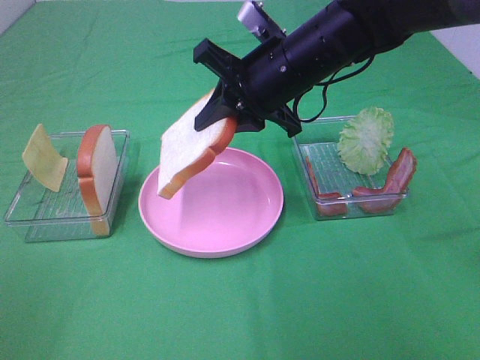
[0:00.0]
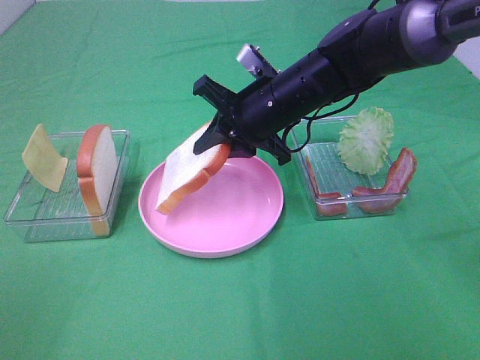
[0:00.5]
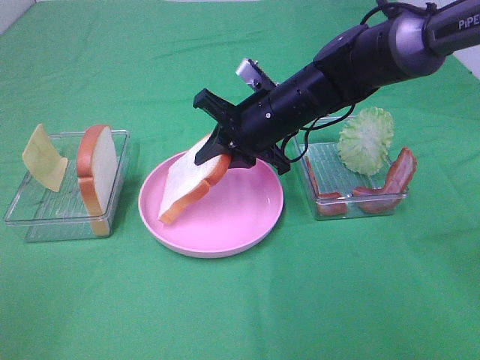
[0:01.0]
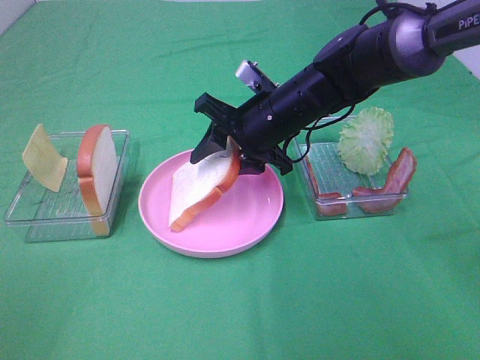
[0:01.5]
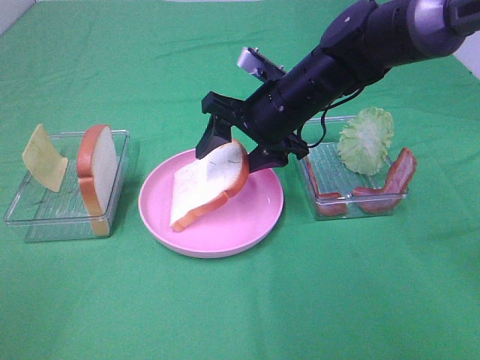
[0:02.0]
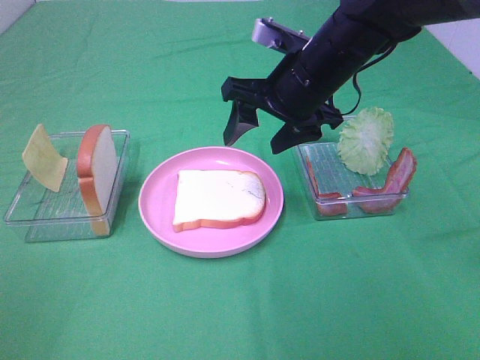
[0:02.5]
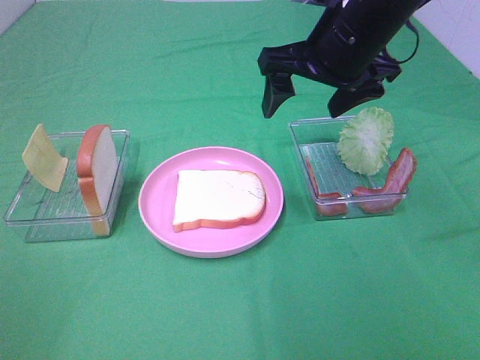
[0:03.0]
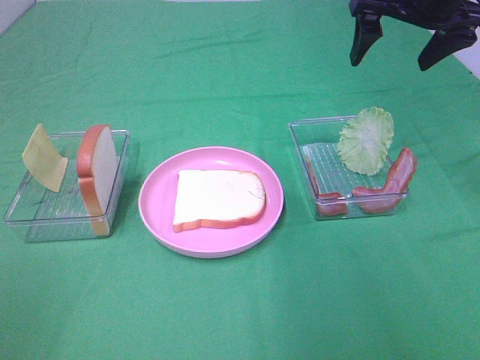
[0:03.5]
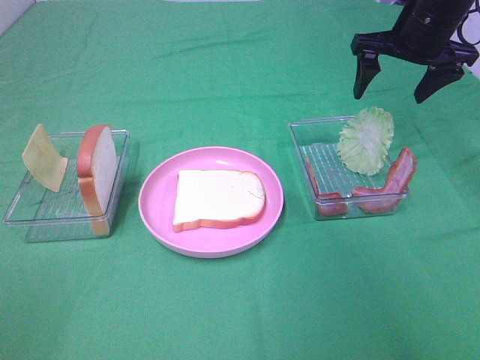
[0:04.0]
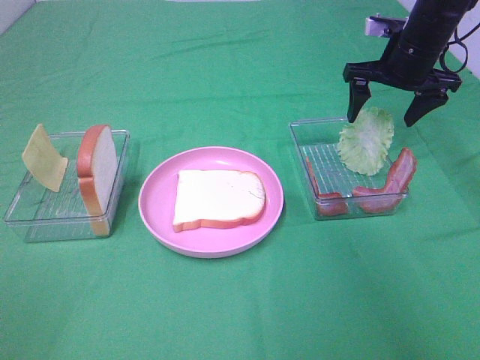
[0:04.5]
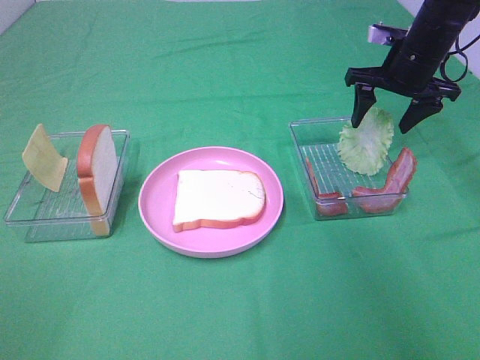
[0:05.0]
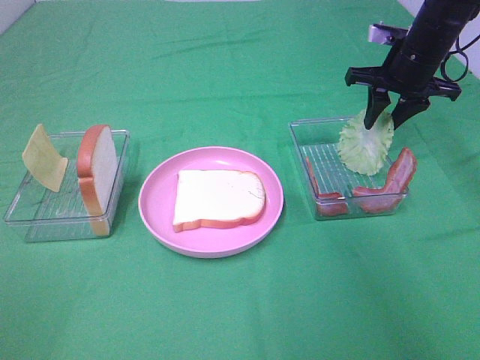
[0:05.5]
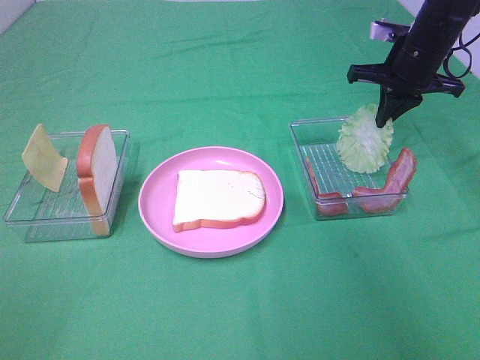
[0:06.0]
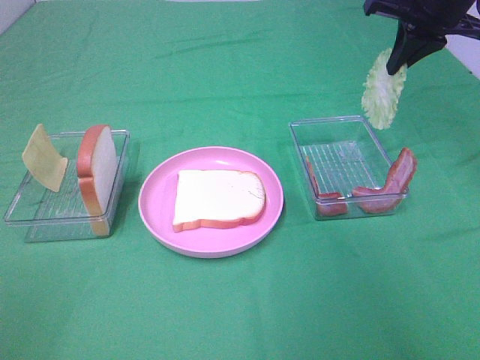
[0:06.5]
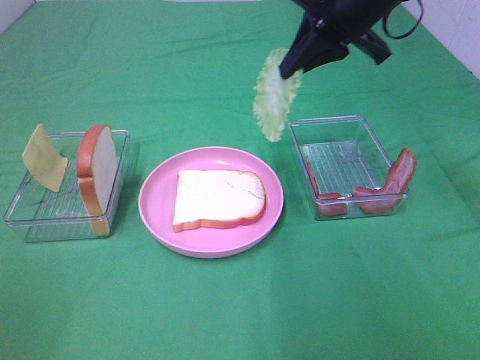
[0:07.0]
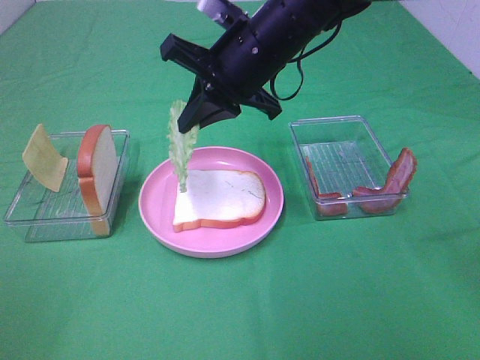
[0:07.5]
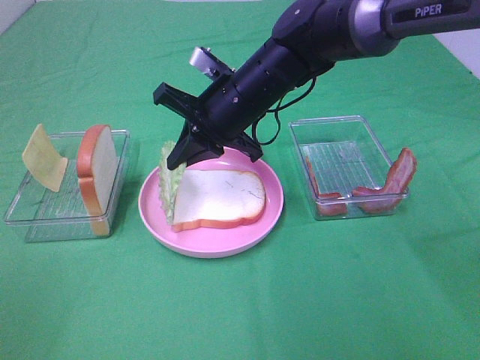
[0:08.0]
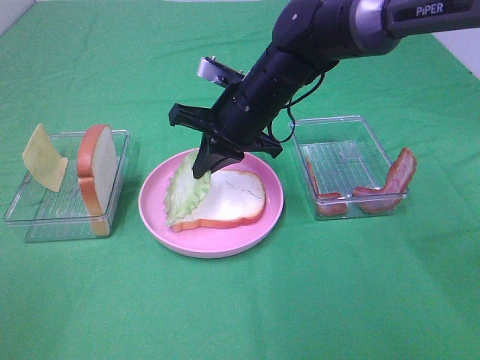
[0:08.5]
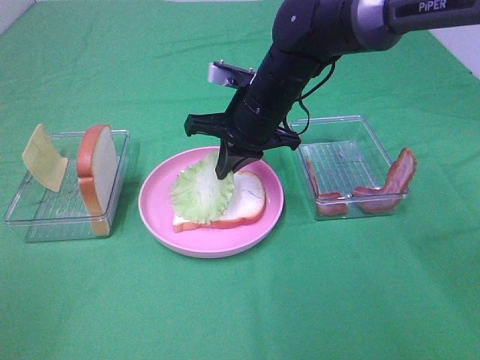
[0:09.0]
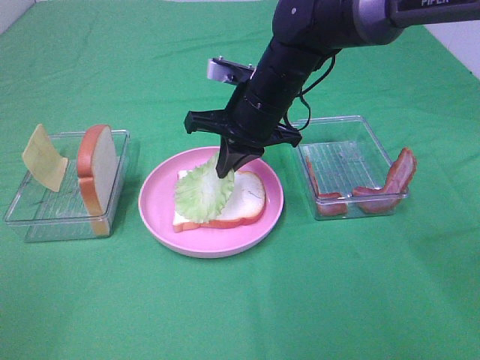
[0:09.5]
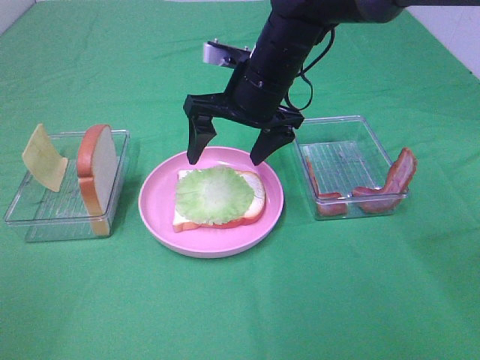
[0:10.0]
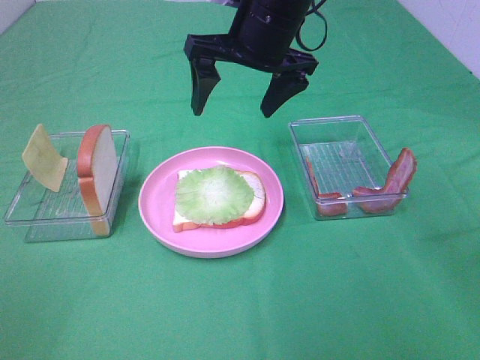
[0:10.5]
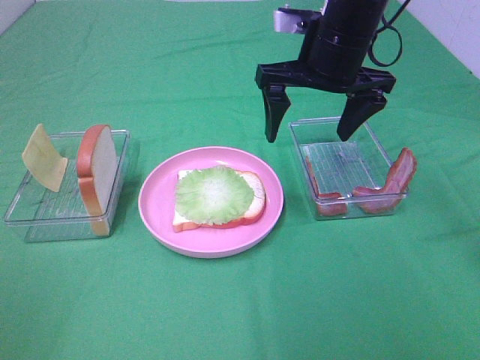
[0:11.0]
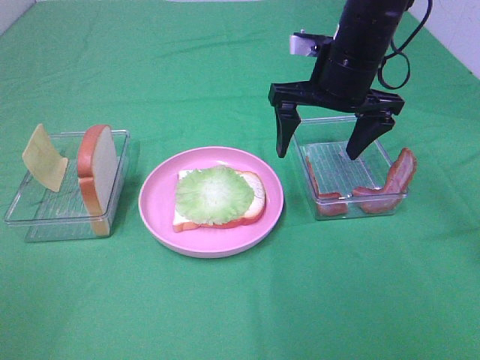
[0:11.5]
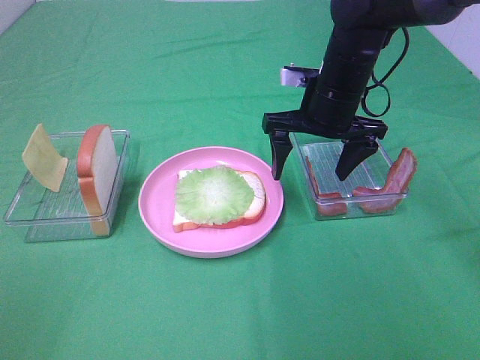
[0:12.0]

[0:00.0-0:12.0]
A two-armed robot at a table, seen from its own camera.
Task of the whole recording: Make sandwiches.
Step, 0:00.0 to 0:02.5: Right hand:place the bread slice on the plate.
Step, 0:03.0 to 0:06.0: Right hand:grab the lettuce slice.
Step, 0:06.5 to 0:10.0: Right hand:place the lettuce slice on the bread slice.
0:00.0 to 0:02.0: The right gripper opens its fingers.
0:02.0 to 0:04.0: The right gripper heads to the right, forward and upward, covering approximately 20 cm.
0:04.0 to 0:06.0: The right gripper closes up.
0:06.0 to 0:08.0: The right gripper travels to the left and backward by about 25 cm.
0:08.0 to 0:10.0: The right gripper opens its fingers.
0:10.0 to 0:12.0: The right gripper shifts some 10 cm to the right, and moves roughly 5 cm upward and comes back.

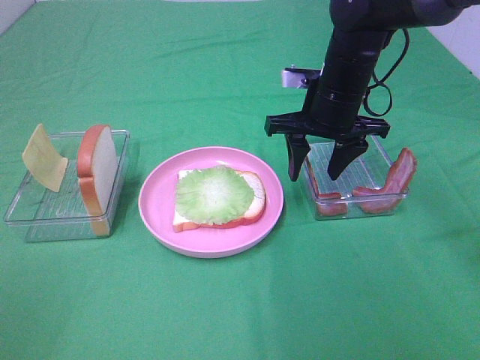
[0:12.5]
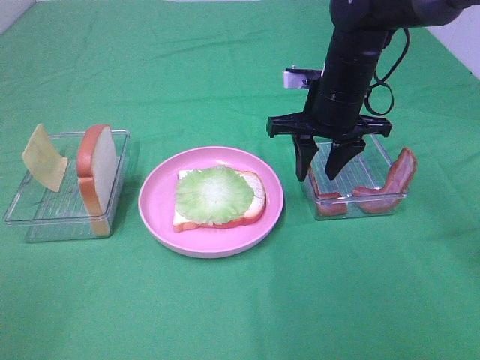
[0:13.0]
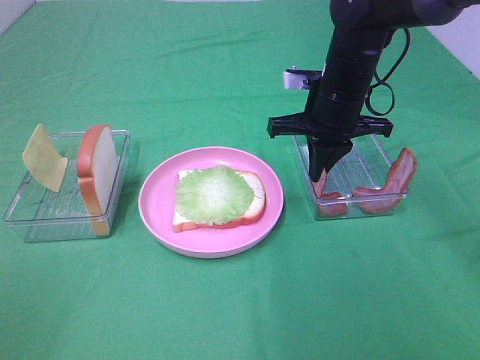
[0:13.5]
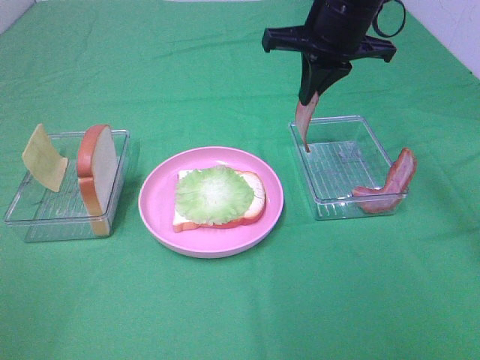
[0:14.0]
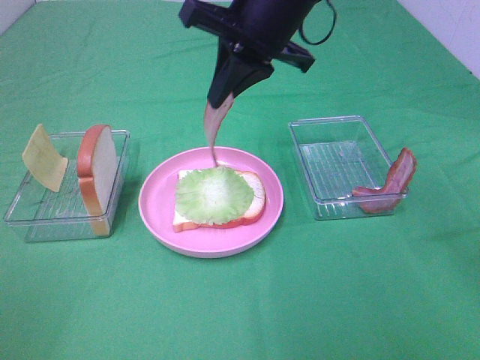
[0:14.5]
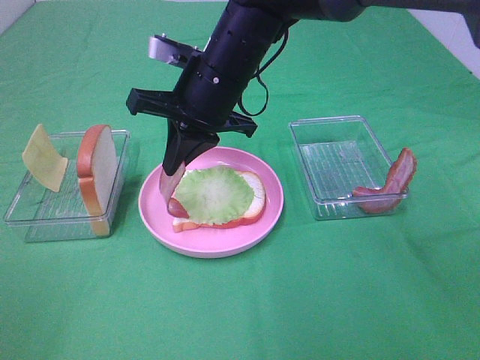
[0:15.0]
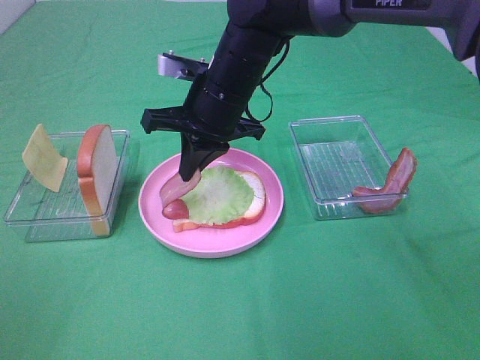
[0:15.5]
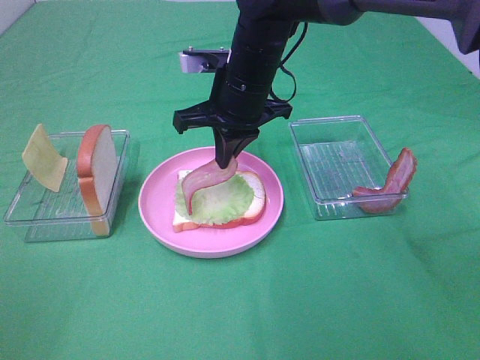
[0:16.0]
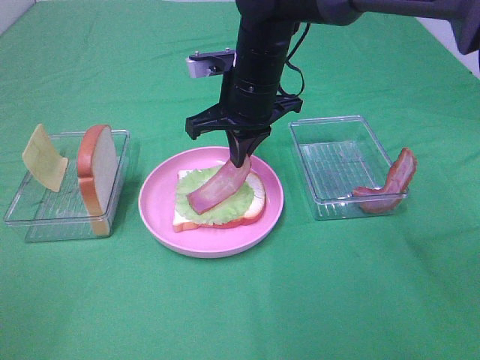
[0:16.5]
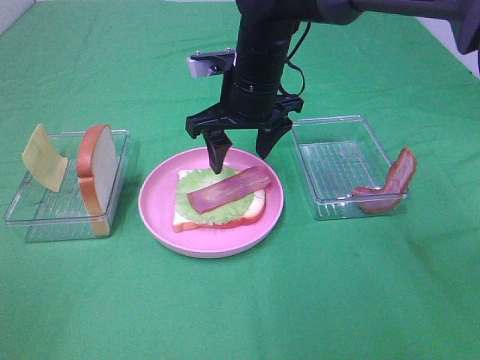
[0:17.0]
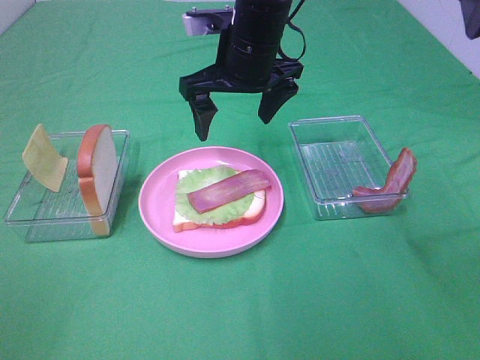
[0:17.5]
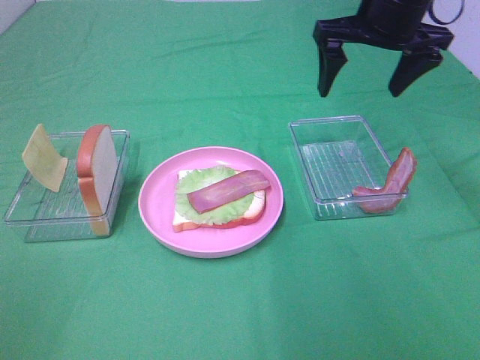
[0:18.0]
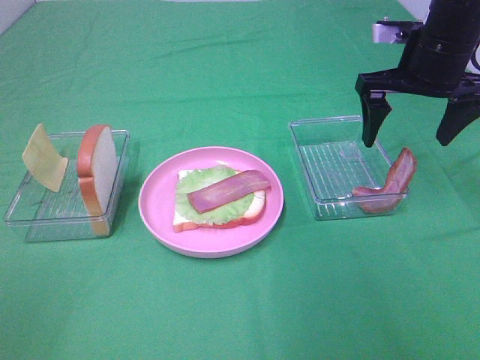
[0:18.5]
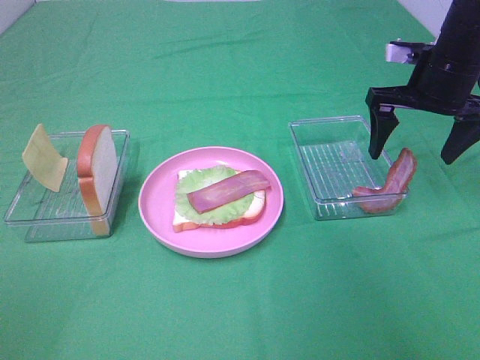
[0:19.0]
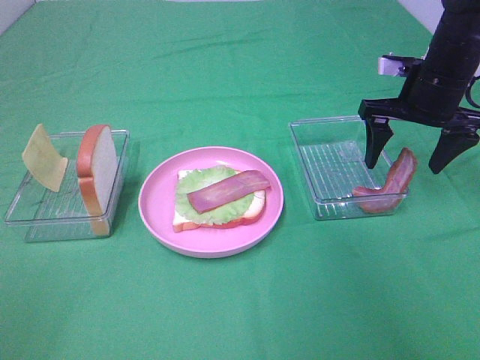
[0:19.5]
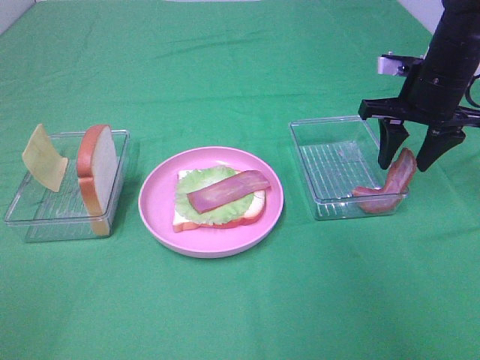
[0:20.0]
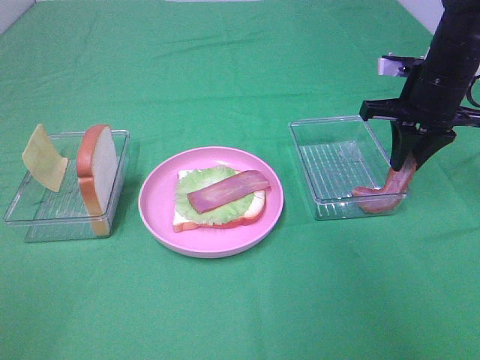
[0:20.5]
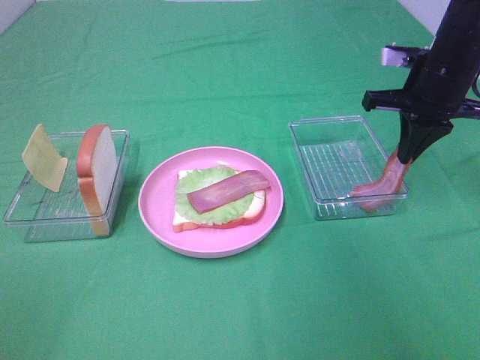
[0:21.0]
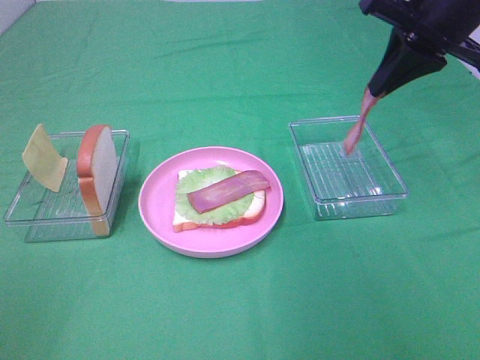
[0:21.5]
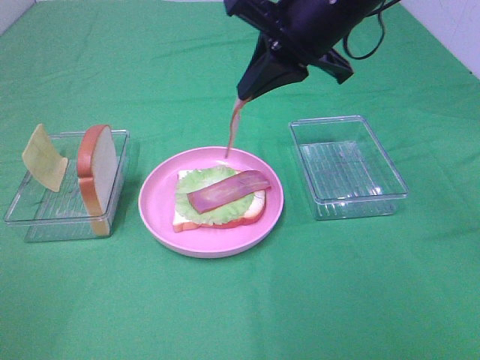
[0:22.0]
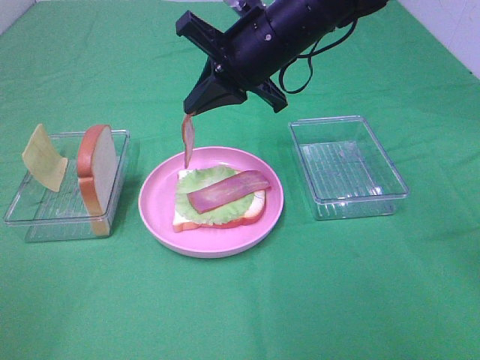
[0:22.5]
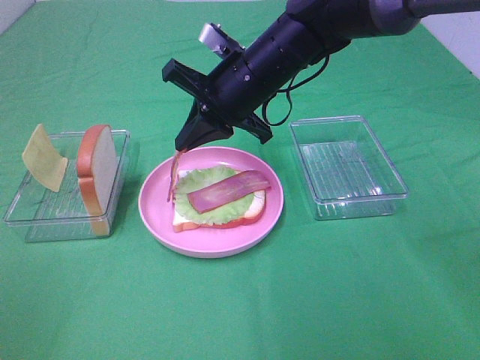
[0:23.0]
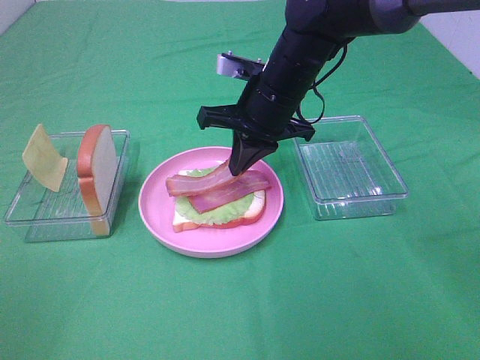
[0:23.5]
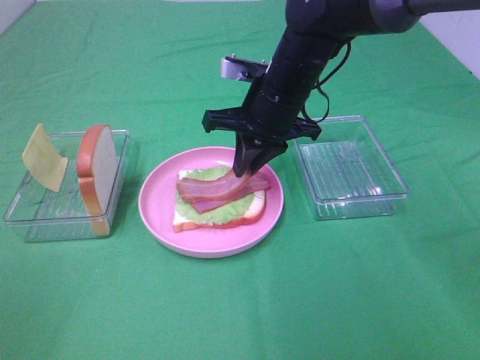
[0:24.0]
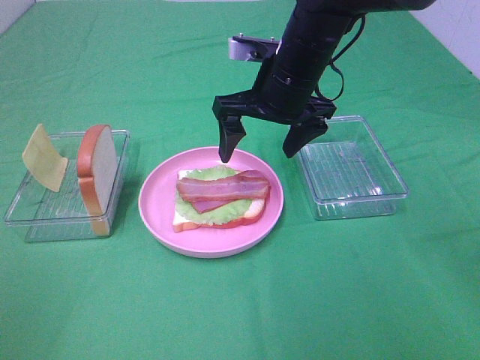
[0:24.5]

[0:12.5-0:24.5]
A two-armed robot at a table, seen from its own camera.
Task of the whole recording: Make sandwiches.
Step, 0:14.0 to 0:16.5: Right hand:place bacon on lettuce slice.
Step, 0:17.0 to 0:21.0: Right hand:grab the bacon.
Step, 0:21.5 to 0:24.0: Right hand:place bacon on bacon.
0:12.5 to 0:14.5: The right gripper is displaced upward and to the left by about 15 cm, and closes its fingers.
0:14.5 to 0:16.5: The right gripper moves downward, roughly 10 cm.
0:16.5 to 0:18.5: The right gripper shifts approximately 20 cm to the right, and opens.
0:18.5 to 0:20.5: The right gripper shifts by some 5 cm, and closes.
0:20.5 to 0:22.5: The right gripper travels to the left by about 20 cm.
0:22.5 to 0:24.5: The right gripper opens.

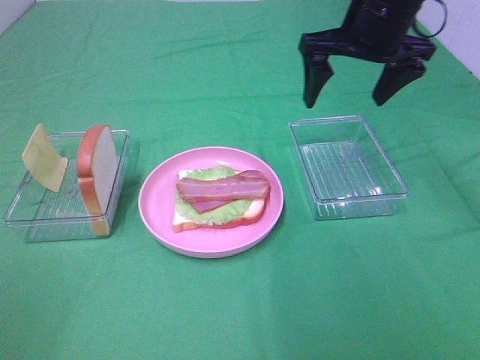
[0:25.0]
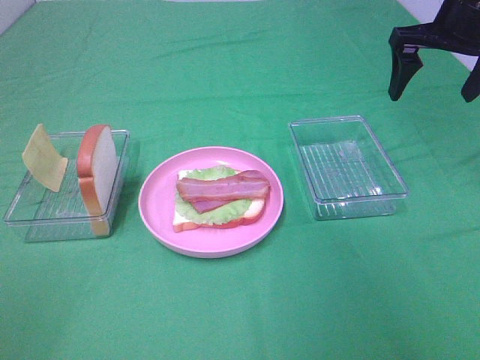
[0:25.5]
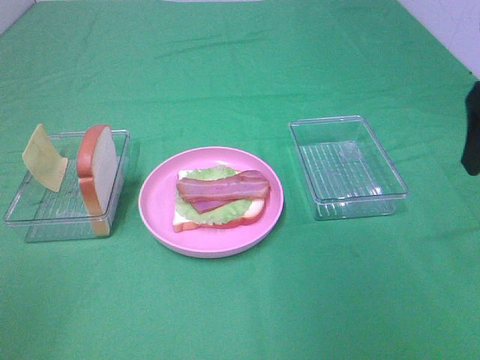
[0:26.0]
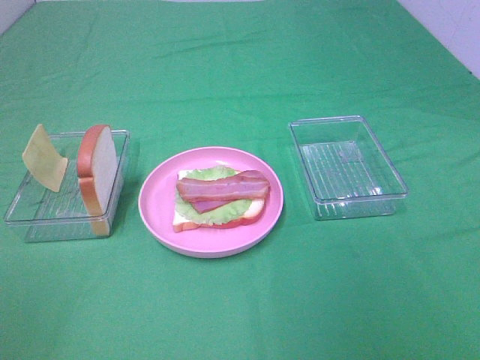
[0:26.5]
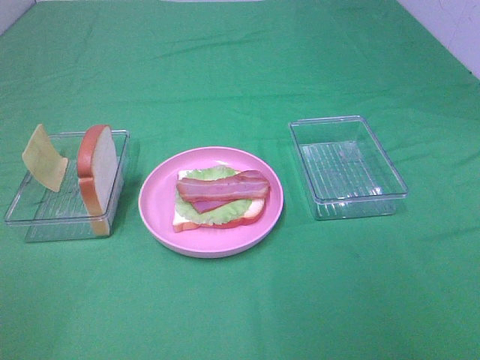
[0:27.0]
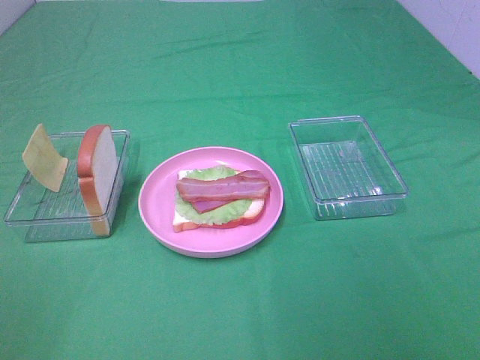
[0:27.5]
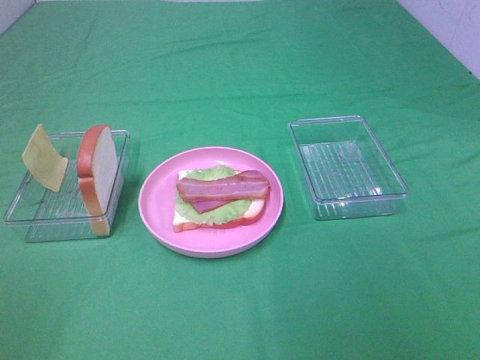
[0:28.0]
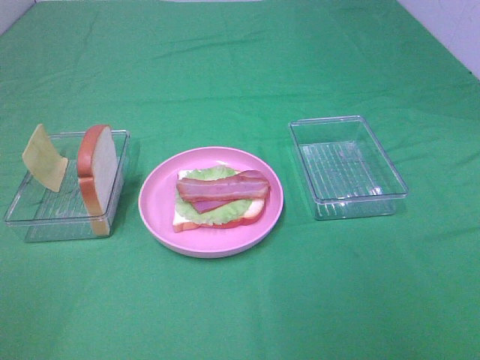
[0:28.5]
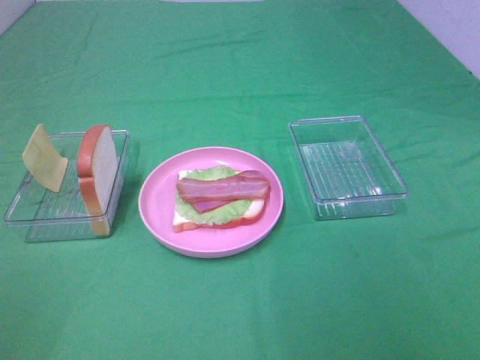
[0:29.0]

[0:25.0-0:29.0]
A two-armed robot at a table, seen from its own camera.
Task of the whole recording: Make sandwiches.
0:25.0 to 0:27.0: The right gripper moves backward, about 40 cm.
0:27.0 to 0:29.0: Both grippers stay put.
